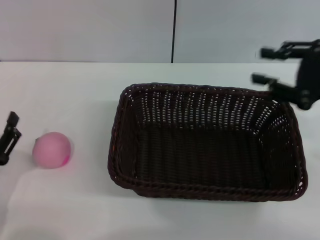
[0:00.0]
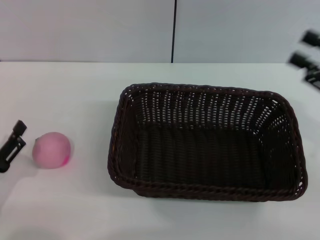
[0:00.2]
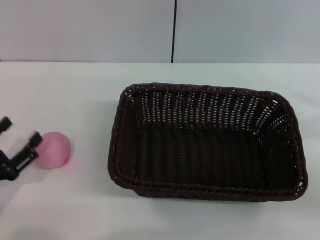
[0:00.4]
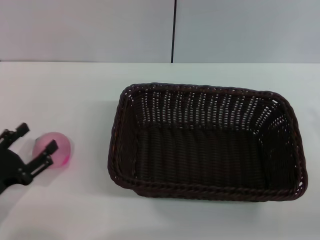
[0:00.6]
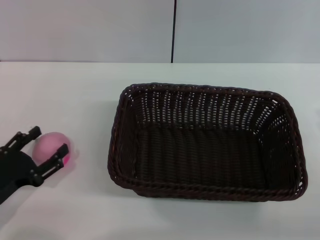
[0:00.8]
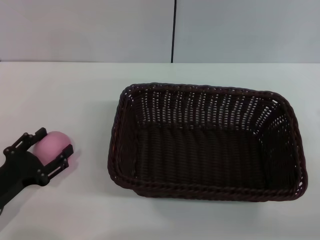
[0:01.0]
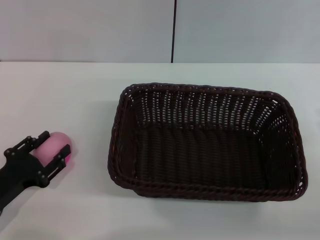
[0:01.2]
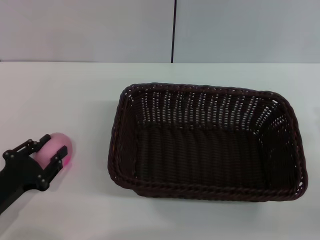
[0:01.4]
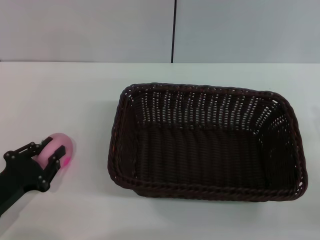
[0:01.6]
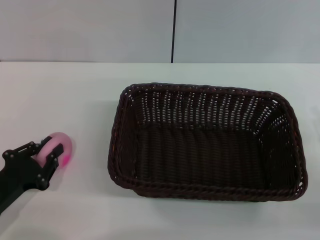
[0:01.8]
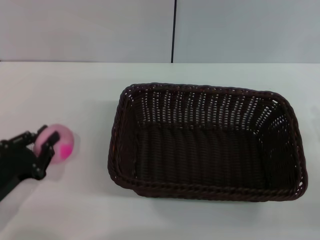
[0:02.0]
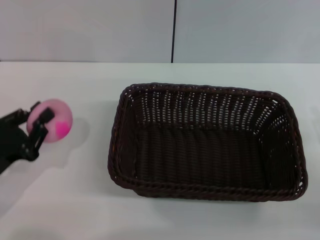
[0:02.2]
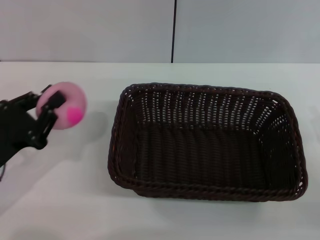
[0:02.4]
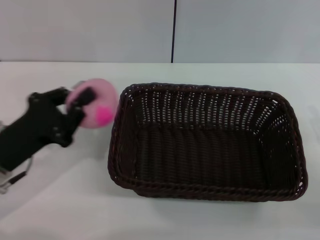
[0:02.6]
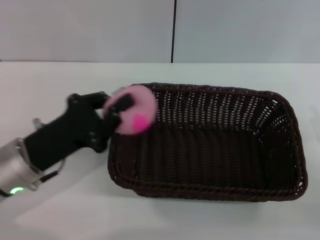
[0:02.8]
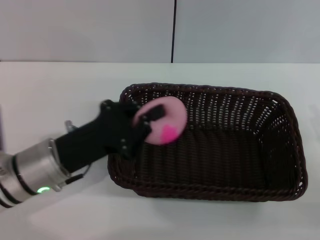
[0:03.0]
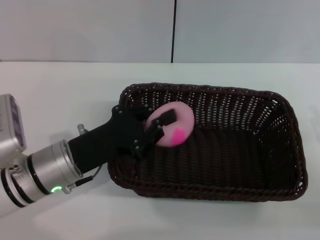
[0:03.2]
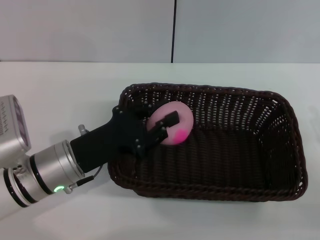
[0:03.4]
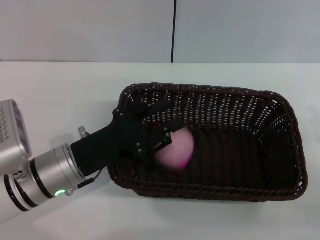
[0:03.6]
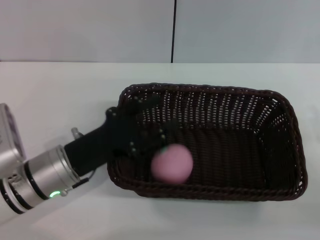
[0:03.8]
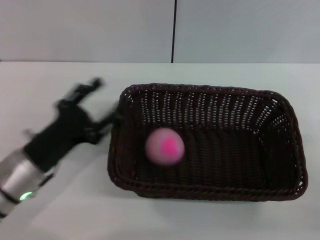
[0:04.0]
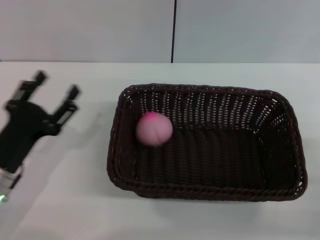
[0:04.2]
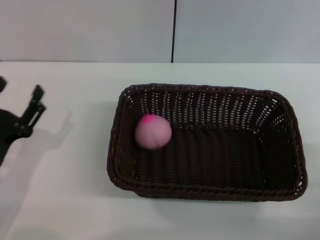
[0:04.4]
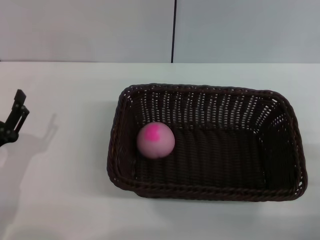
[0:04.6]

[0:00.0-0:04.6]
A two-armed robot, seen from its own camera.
Step, 0:00.2 to 0:02.4: Pick up the peach with the left gripper.
Step, 0:02.6 to 0:04.0: Place the peach into the basket with the left gripper.
0:00.0 to 0:01.6: The left gripper closes its fingers, while the right gripper travels downward and backward by roughly 15 cm.
0:01.6 to 0:03.0: The left gripper goes approximately 15 cm to the right, forward and upward, and closes up.
0:03.0 to 0:04.6: The left gripper heads to the left and backward, covering approximately 10 cm, and opens its fingers.
